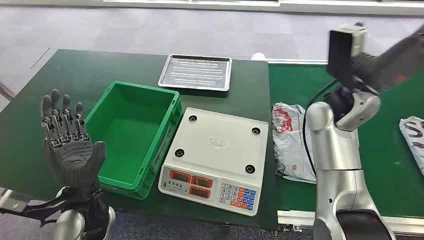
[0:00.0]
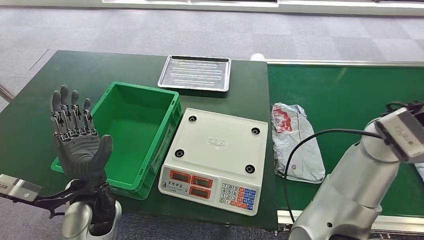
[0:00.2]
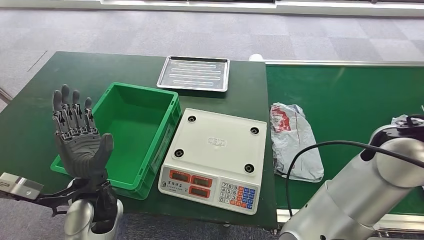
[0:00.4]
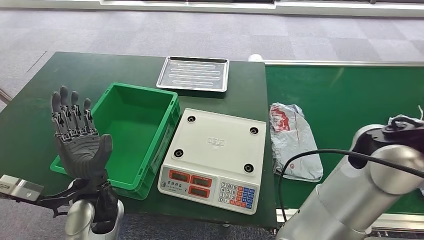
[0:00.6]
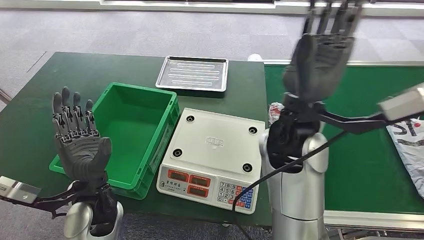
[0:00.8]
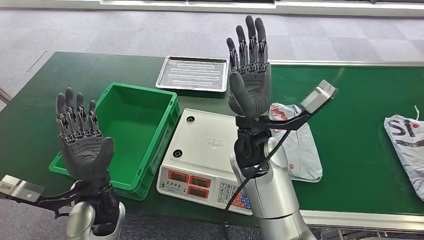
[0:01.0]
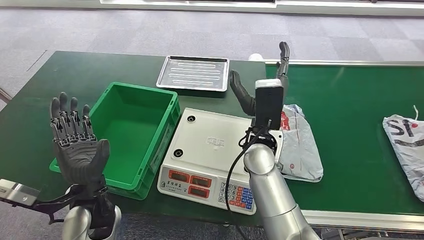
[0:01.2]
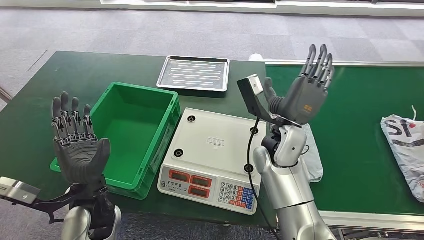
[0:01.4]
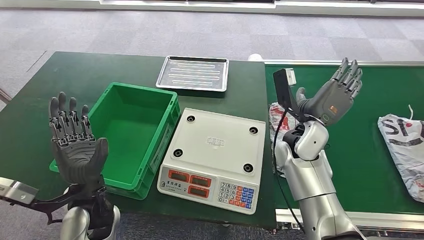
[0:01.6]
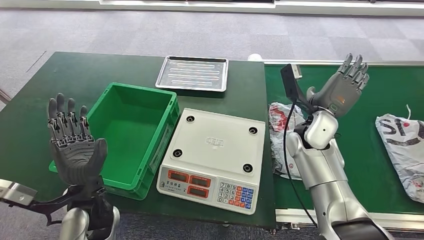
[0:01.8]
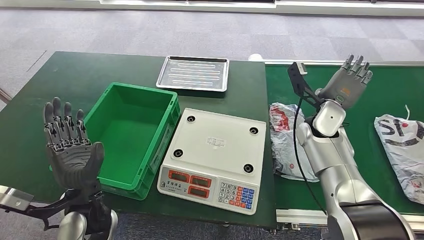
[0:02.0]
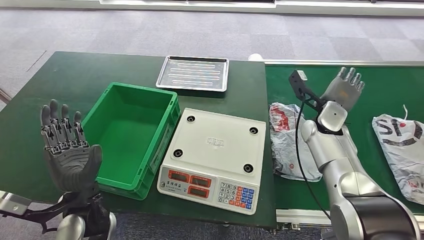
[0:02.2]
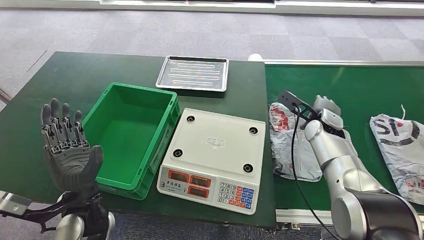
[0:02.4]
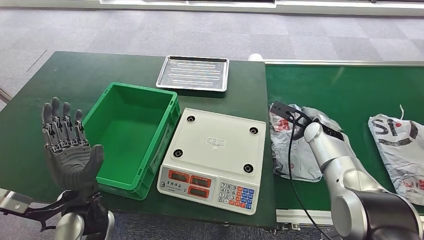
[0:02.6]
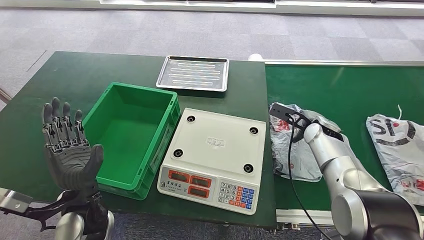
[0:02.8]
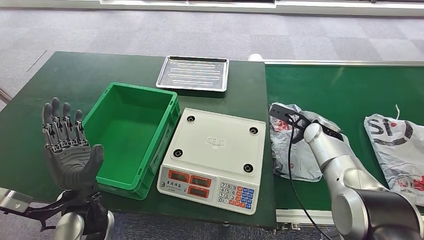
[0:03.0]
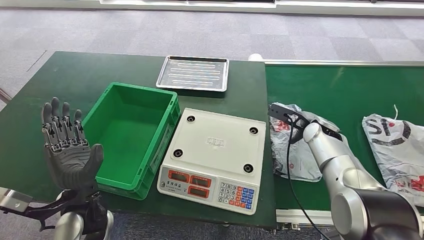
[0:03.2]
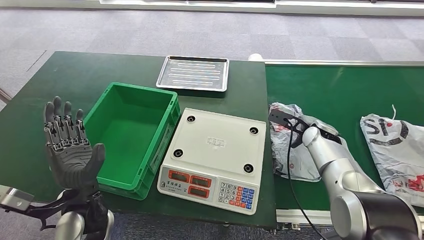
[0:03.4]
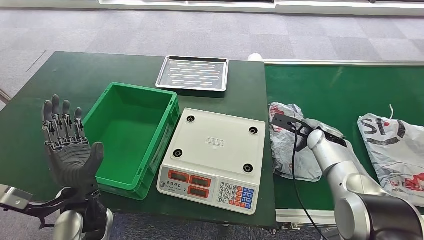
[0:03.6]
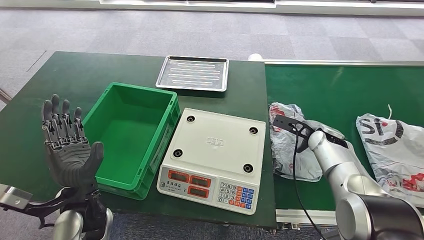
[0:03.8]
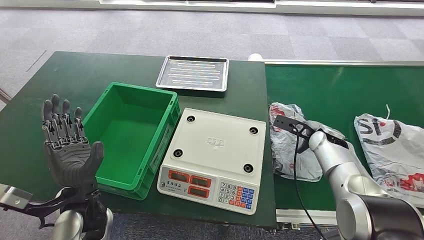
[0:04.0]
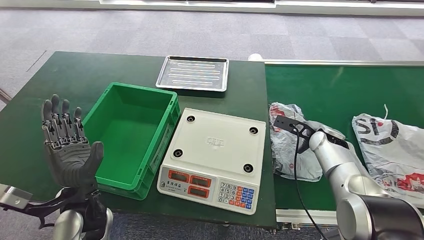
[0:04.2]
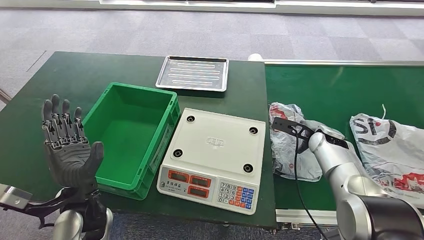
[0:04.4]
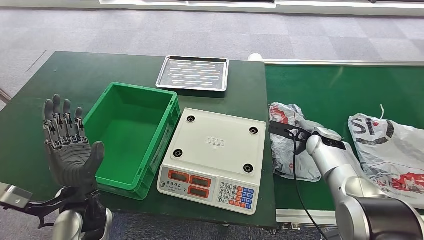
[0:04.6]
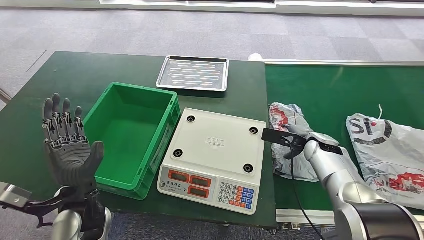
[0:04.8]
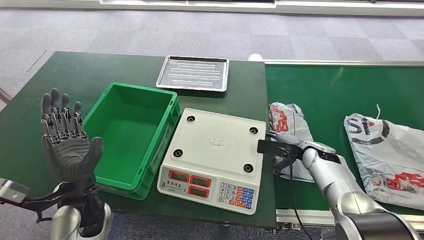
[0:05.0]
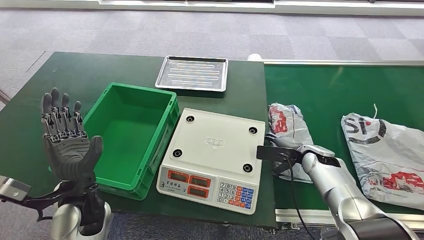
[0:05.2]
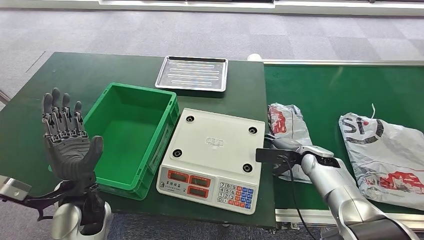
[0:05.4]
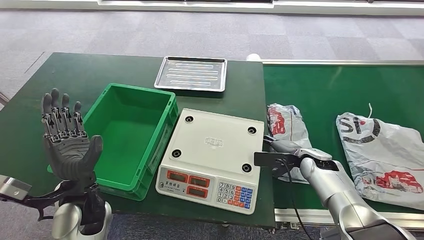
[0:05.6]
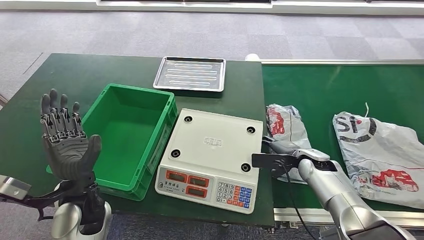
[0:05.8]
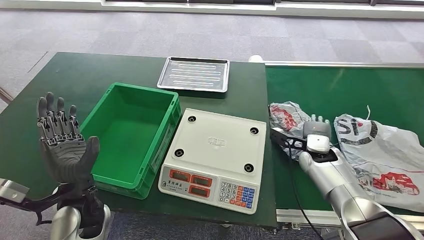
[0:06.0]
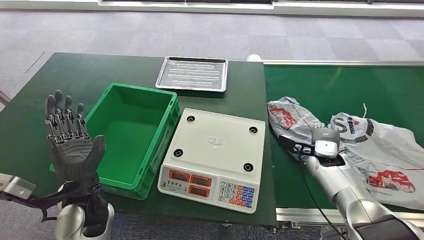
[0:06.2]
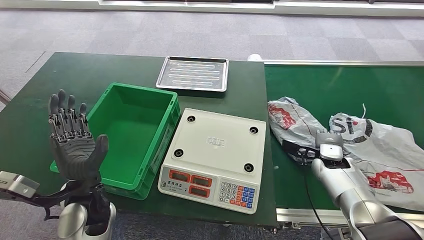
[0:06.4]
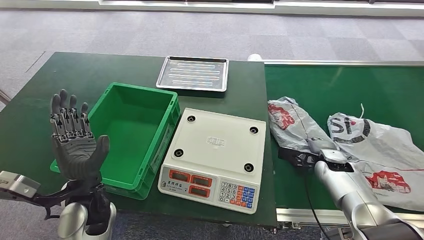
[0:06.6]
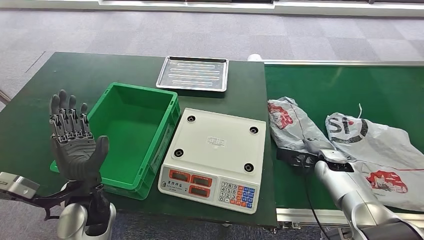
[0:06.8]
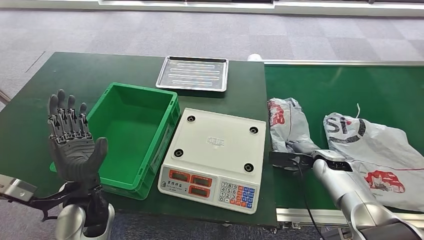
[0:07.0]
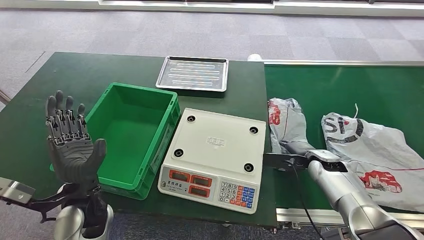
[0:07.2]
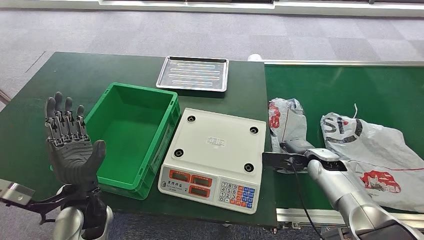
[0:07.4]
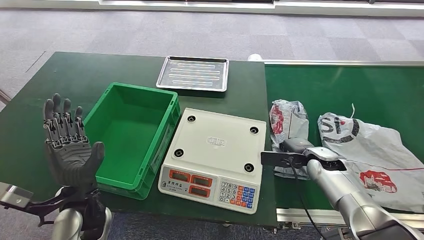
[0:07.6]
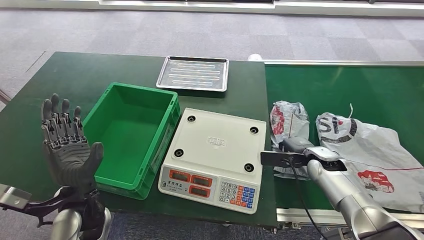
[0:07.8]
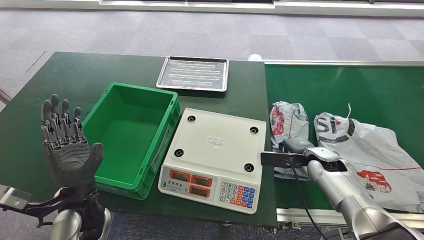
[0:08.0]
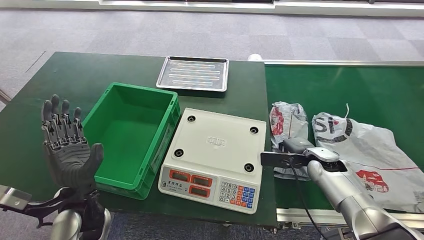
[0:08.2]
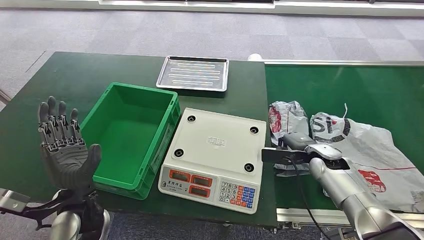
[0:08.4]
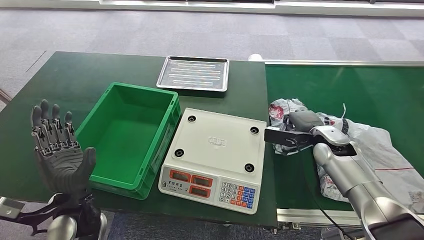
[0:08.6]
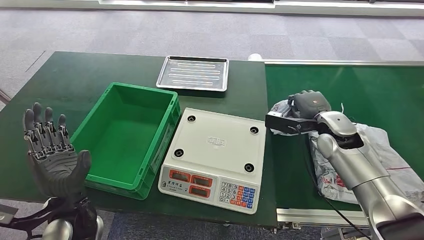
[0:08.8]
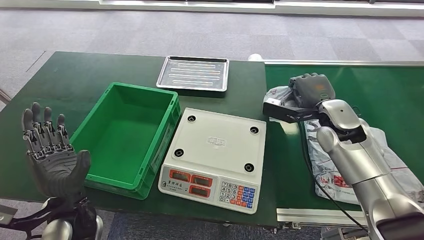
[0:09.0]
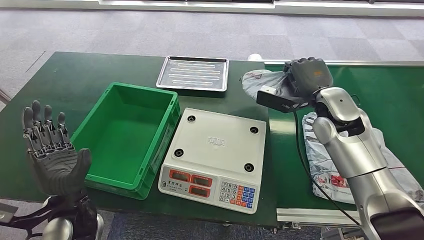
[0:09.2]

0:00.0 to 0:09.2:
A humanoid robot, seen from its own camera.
Step, 0:00.0 to 0:09.2: Pick up the package from the conveyor belt.
0:01.6 to 0:03.0: The right hand travels to the right, downward and forward by some 15 cm.
0:03.0 to 0:04.6: The hands stay close to where they were, moving slightly.
0:07.6 to 0:09.2: The right hand travels upward by some 20 cm.

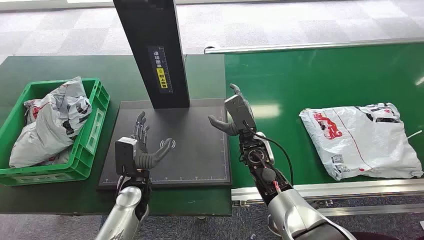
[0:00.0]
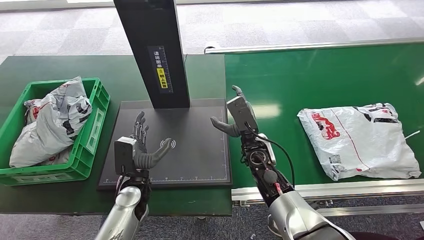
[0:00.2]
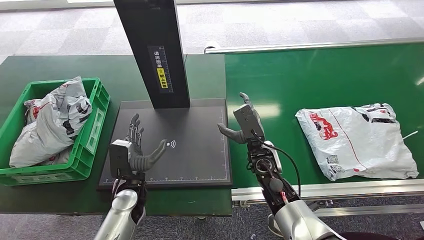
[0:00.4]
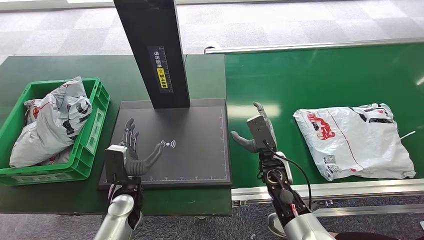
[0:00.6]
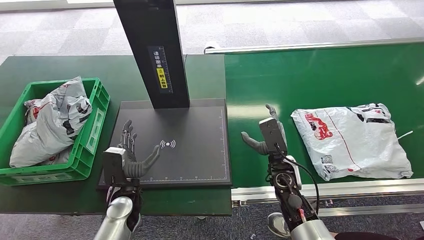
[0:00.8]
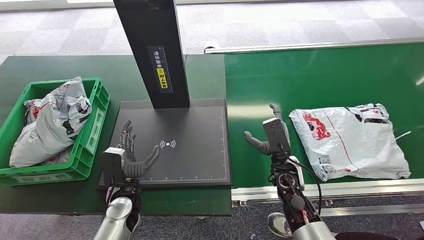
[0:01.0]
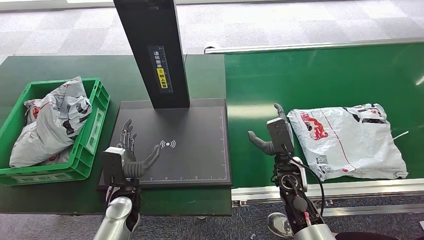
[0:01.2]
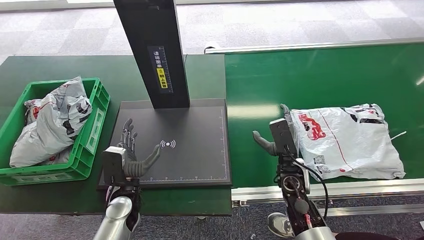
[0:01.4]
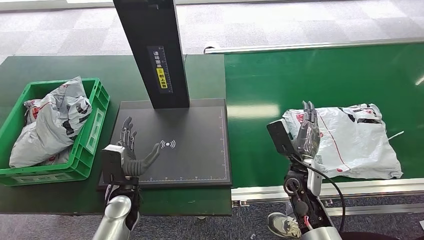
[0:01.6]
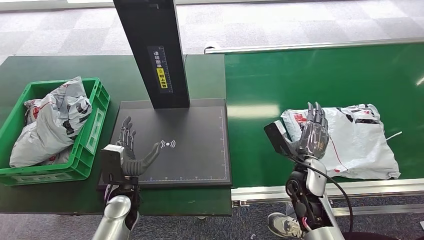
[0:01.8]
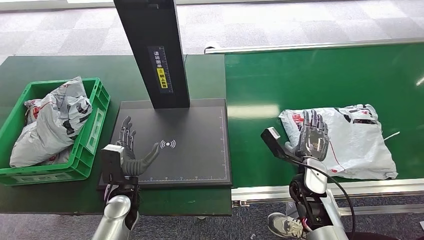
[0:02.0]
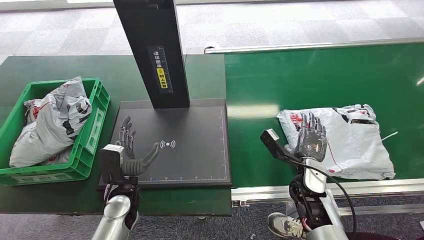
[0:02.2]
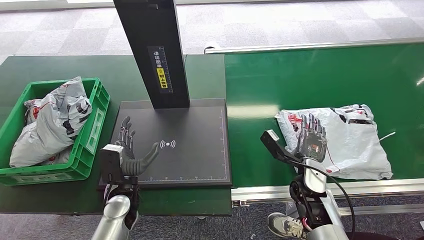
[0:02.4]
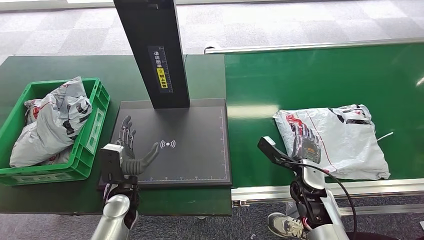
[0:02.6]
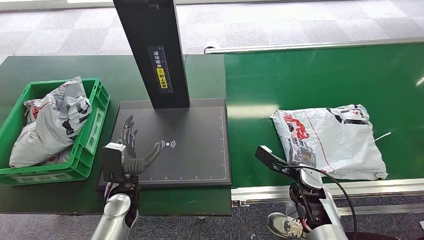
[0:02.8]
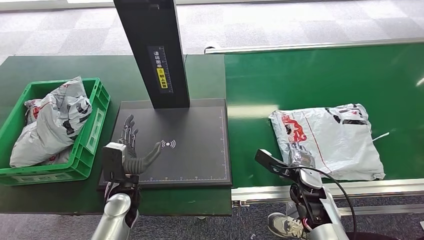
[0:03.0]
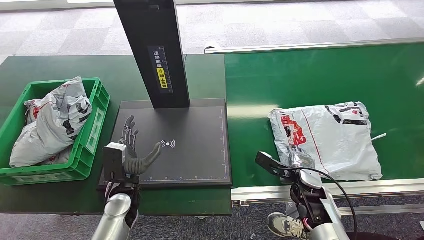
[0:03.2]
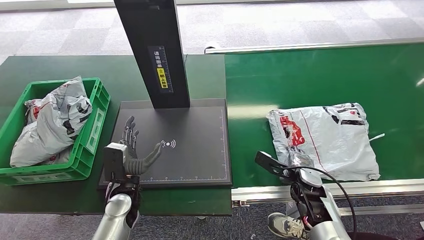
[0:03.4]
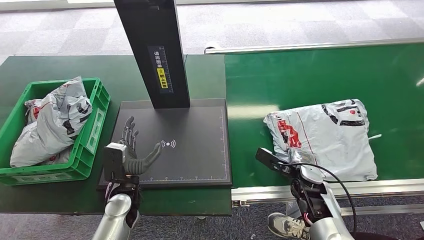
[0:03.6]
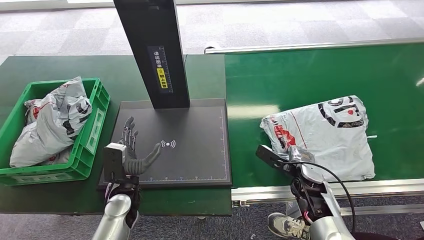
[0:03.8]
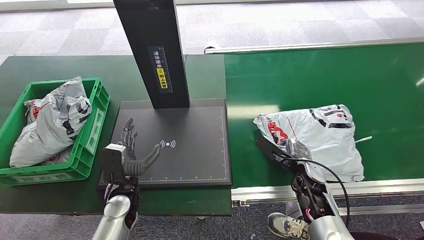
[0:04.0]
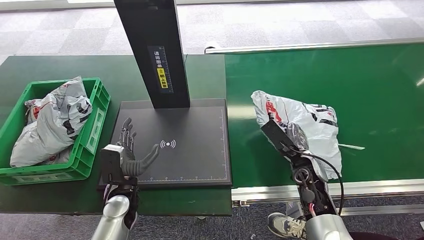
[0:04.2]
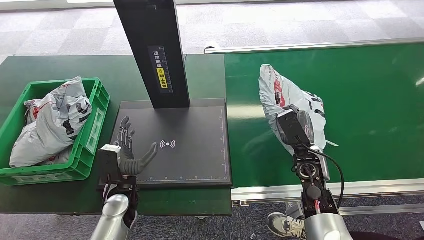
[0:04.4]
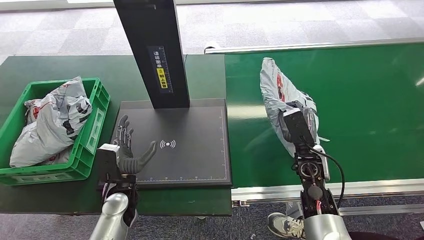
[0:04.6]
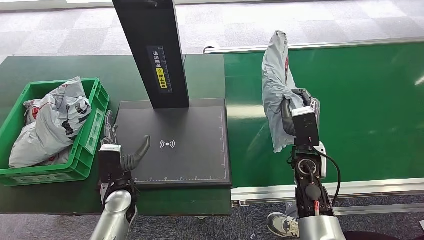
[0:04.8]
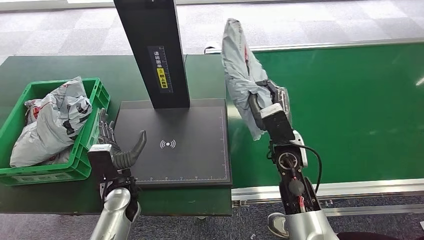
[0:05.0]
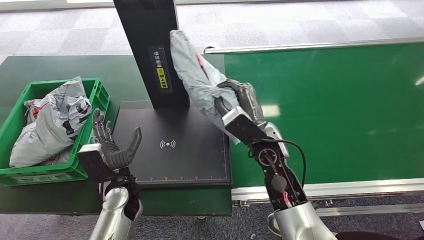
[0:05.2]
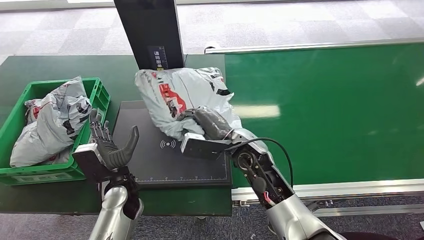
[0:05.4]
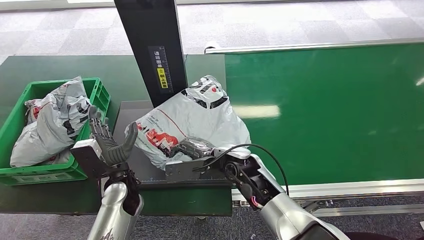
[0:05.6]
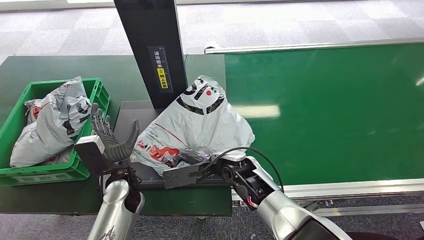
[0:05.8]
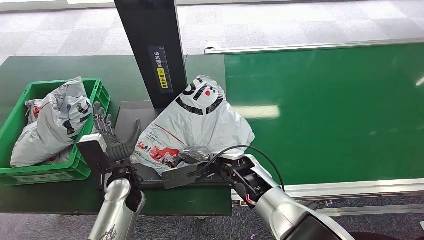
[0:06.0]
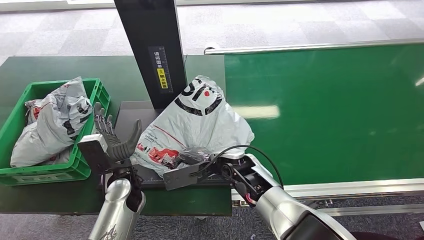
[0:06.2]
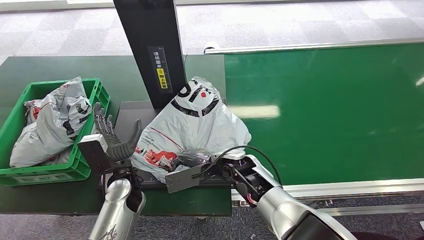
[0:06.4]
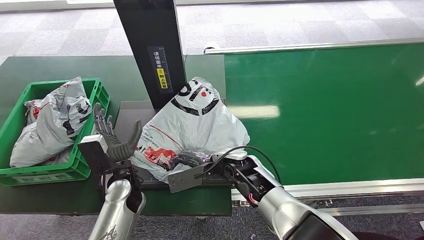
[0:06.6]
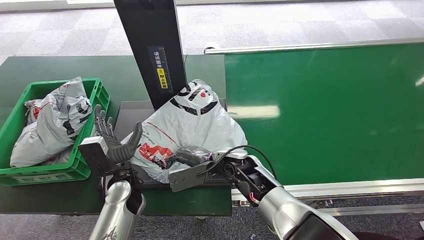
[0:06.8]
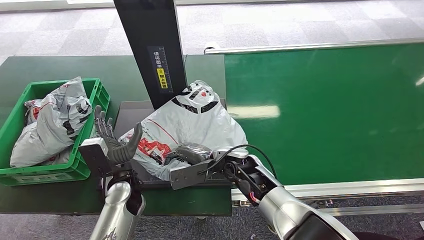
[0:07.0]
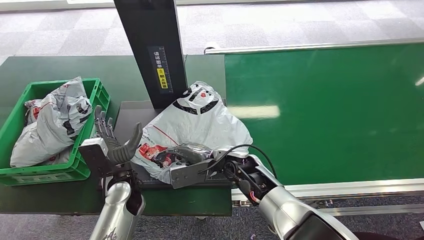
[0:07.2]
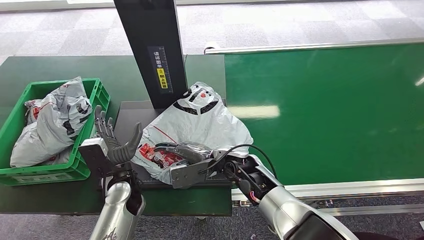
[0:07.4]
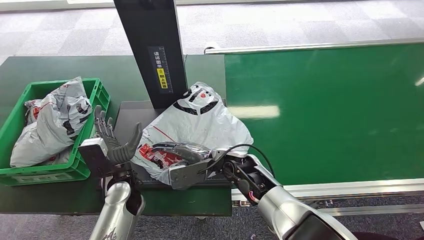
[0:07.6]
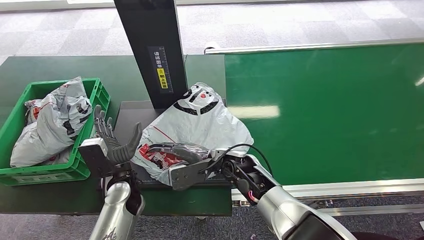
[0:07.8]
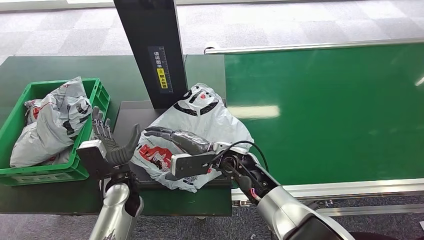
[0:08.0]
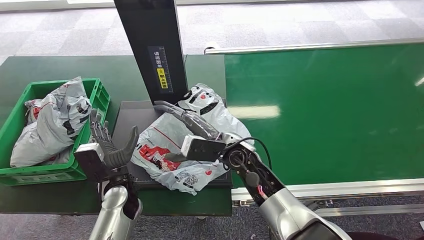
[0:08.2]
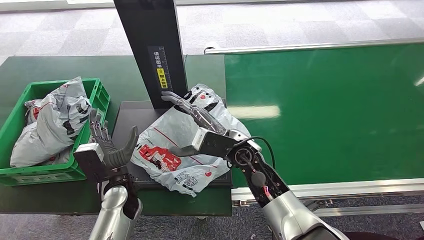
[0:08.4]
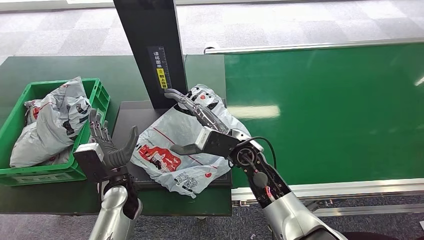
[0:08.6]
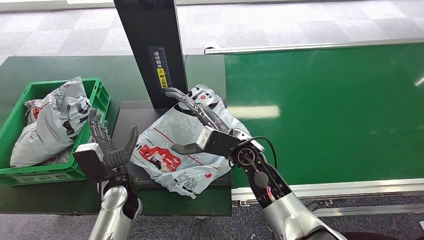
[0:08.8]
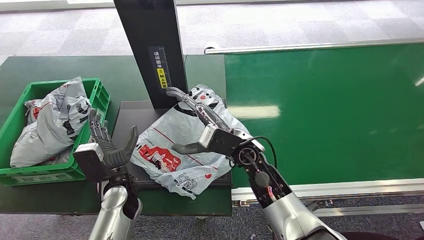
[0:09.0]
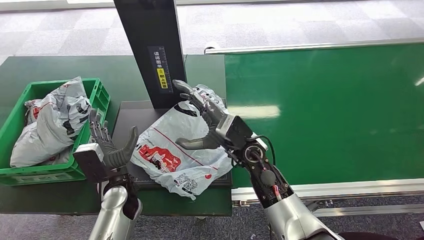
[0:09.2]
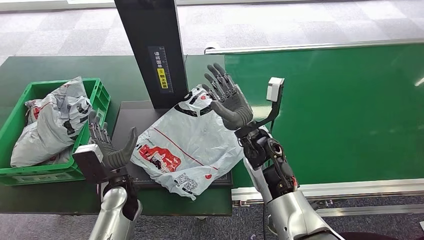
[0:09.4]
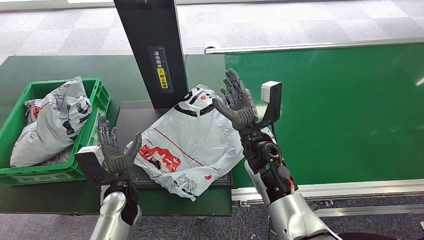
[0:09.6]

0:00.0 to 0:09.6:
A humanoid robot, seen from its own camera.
Step, 0:00.0 to 0:05.2: Pick up the package from the conveyor belt.
Step, 0:05.4 to 0:08.4: Place the package onto the inbound machine.
0:01.6 to 0:03.2: The right hand changes place by some 5 cm.
0:03.2 to 0:04.8: The right hand is displaced upward by some 10 cm.
0:08.0 to 0:09.6: The right hand goes approximately 5 cm to the right.
